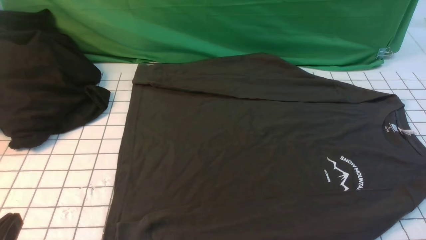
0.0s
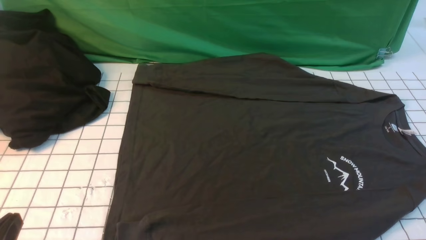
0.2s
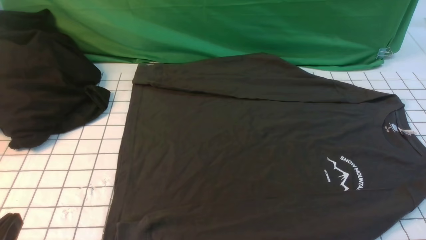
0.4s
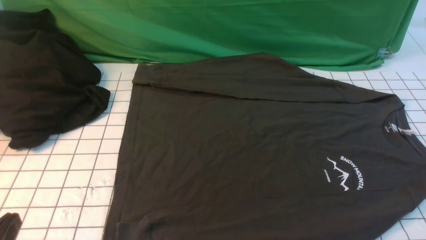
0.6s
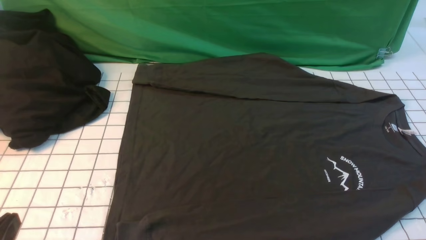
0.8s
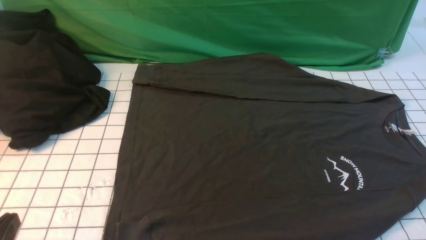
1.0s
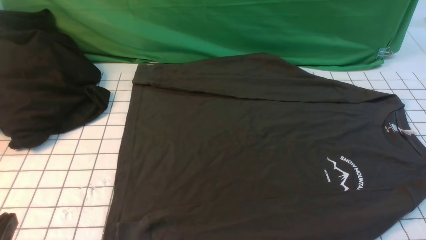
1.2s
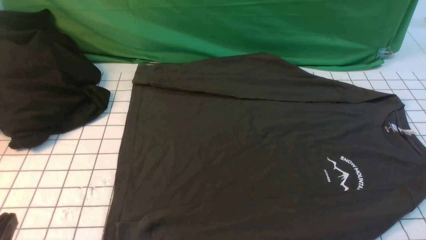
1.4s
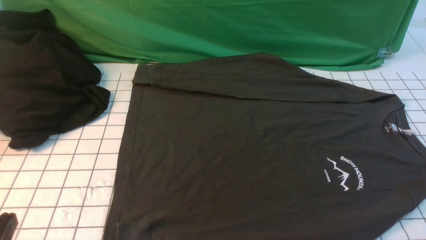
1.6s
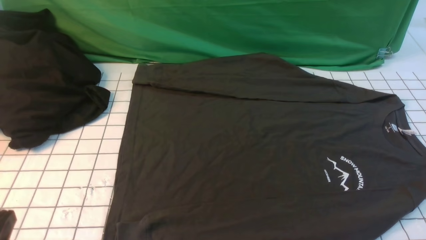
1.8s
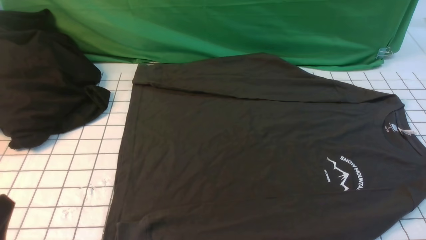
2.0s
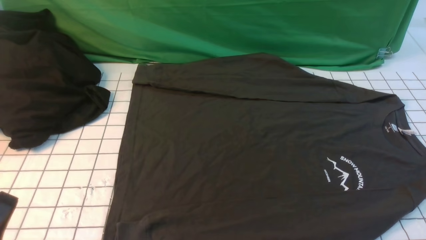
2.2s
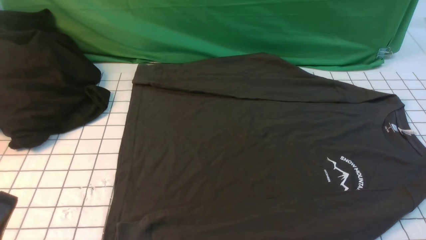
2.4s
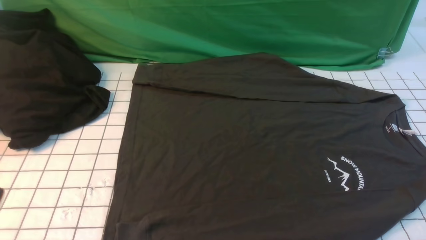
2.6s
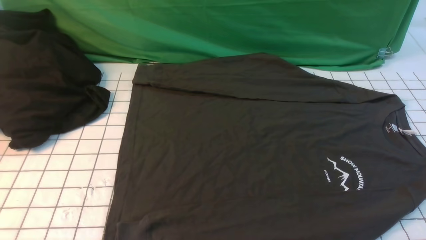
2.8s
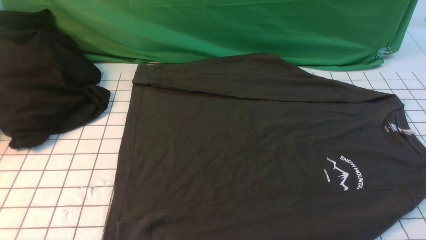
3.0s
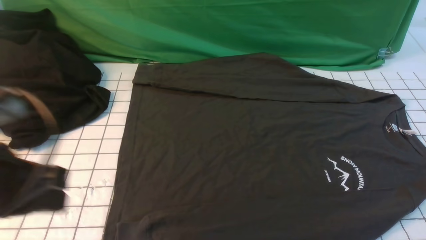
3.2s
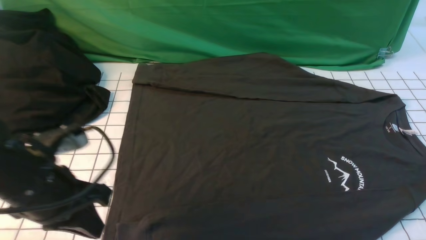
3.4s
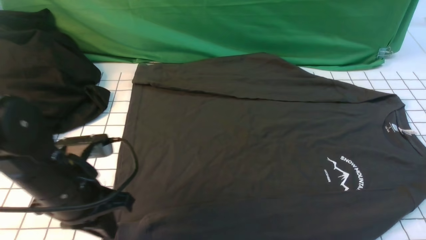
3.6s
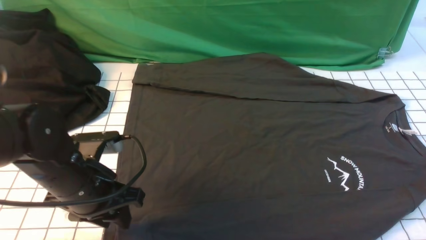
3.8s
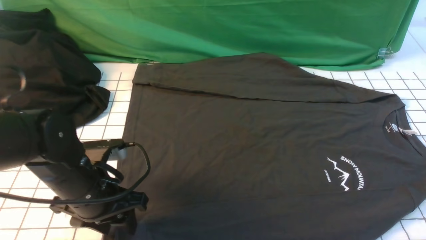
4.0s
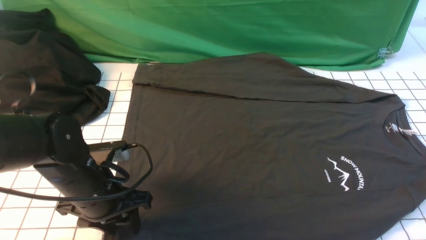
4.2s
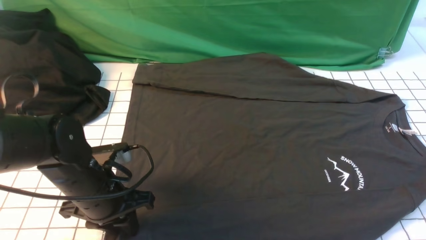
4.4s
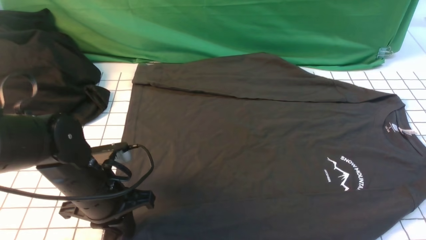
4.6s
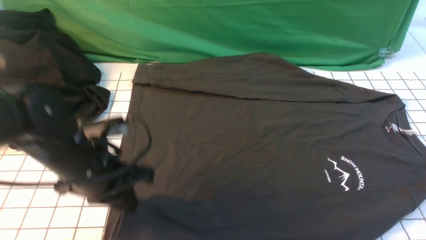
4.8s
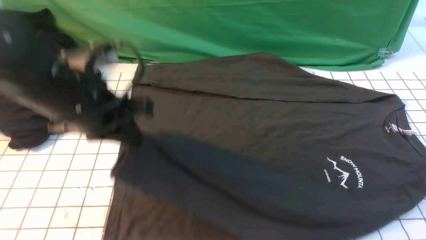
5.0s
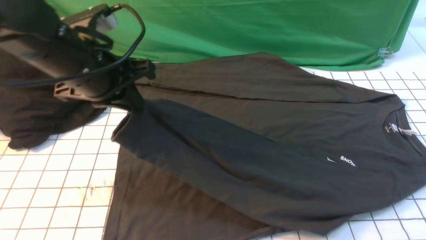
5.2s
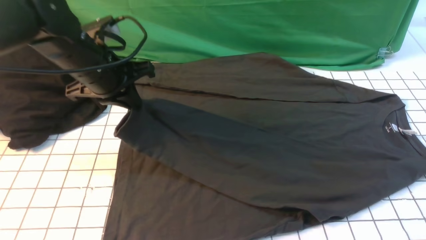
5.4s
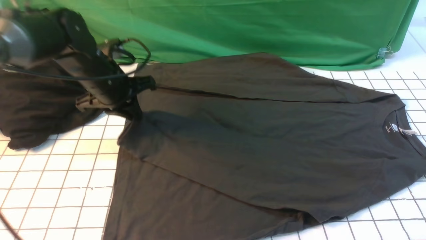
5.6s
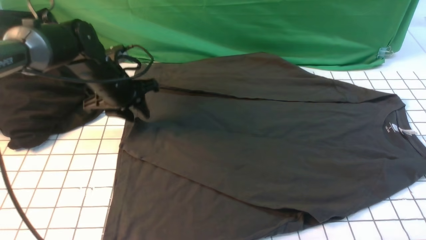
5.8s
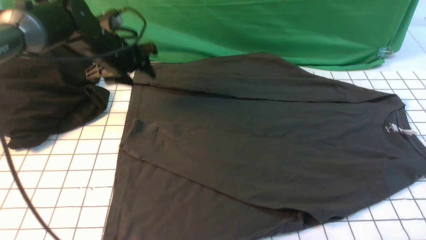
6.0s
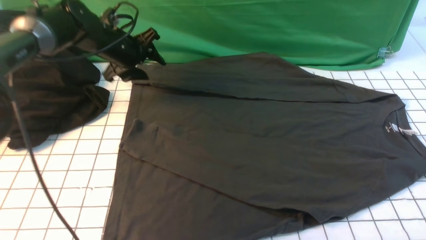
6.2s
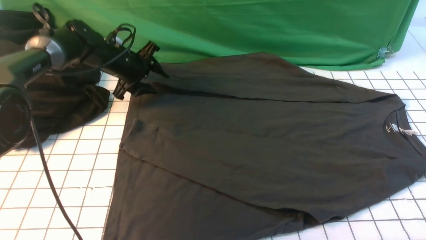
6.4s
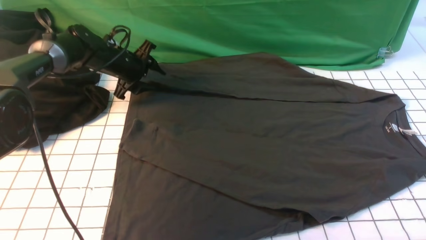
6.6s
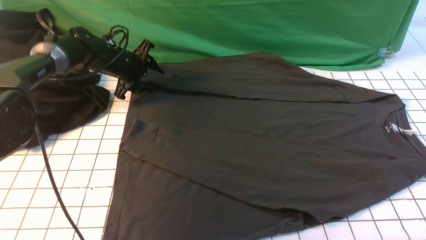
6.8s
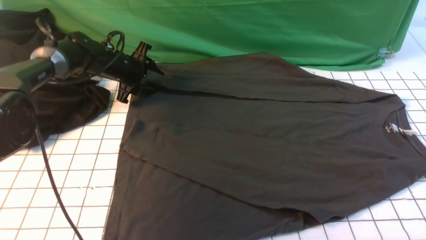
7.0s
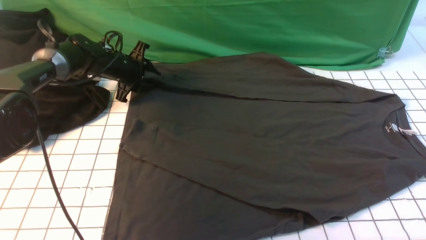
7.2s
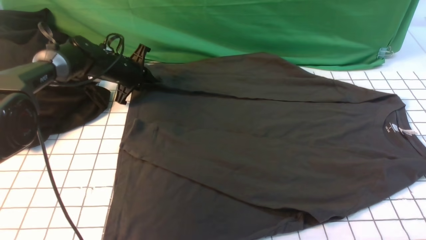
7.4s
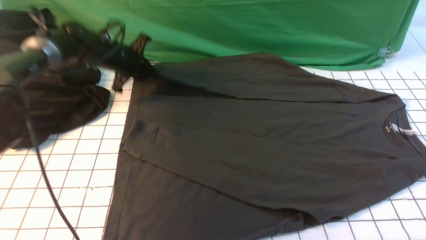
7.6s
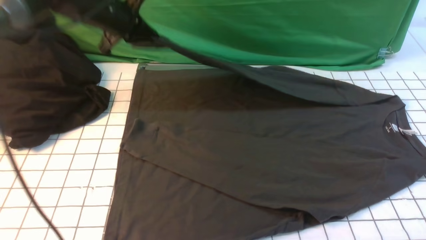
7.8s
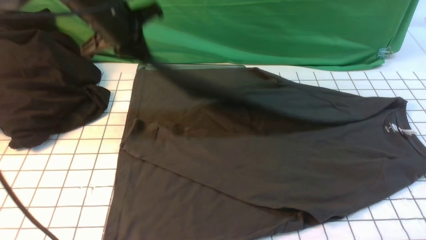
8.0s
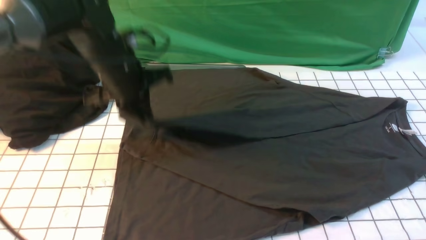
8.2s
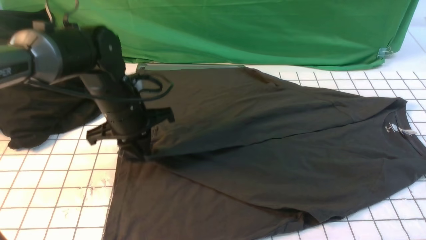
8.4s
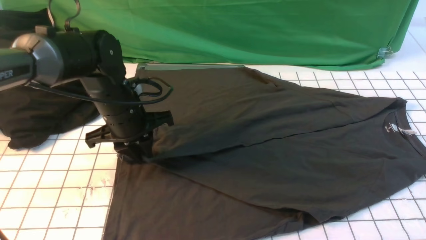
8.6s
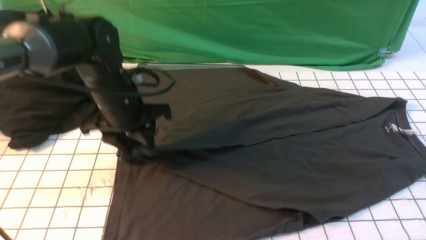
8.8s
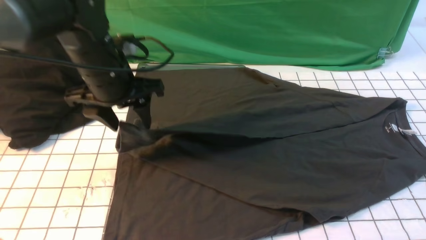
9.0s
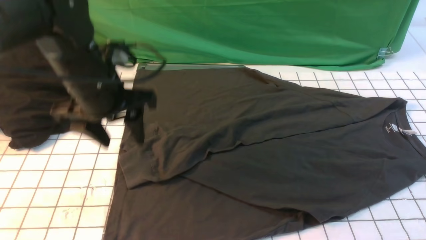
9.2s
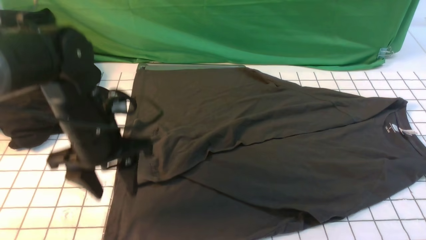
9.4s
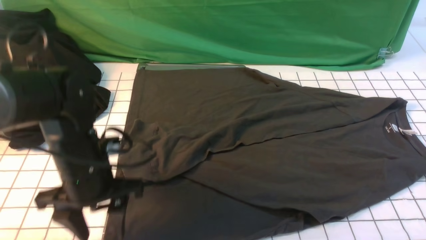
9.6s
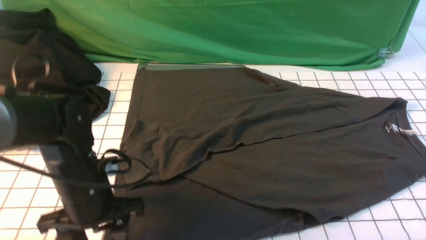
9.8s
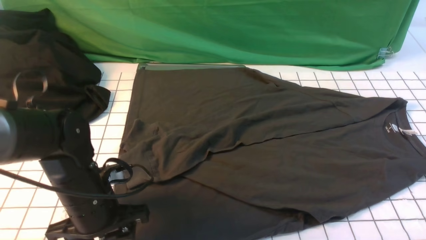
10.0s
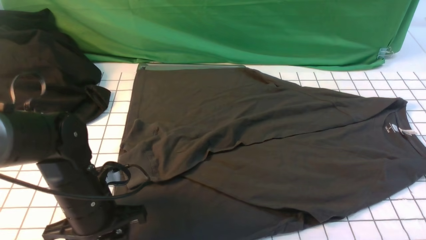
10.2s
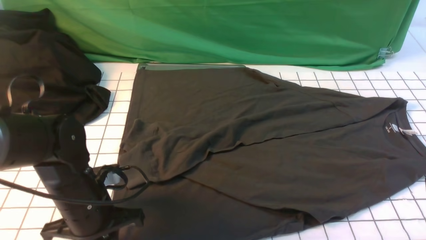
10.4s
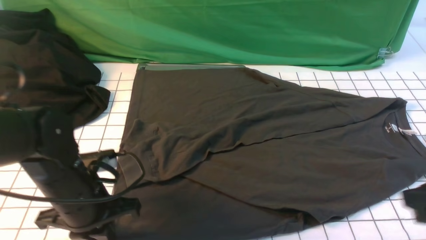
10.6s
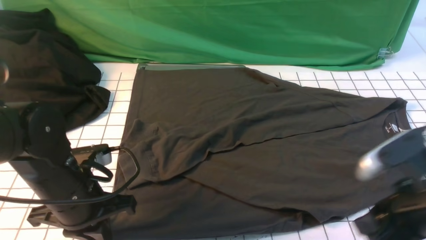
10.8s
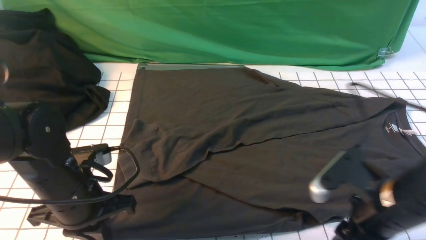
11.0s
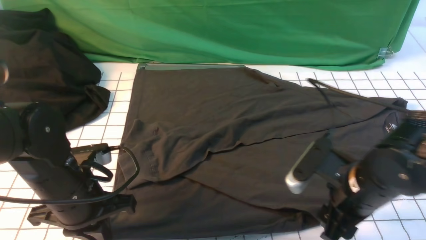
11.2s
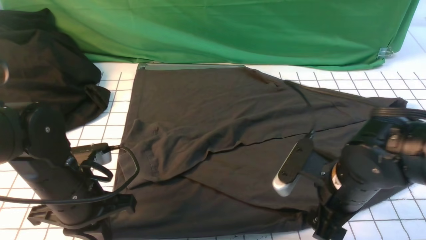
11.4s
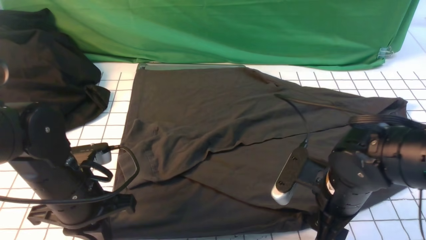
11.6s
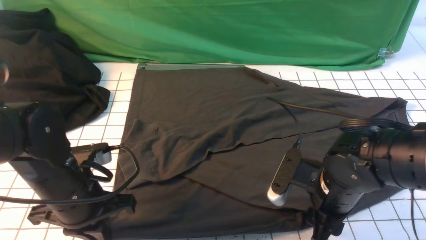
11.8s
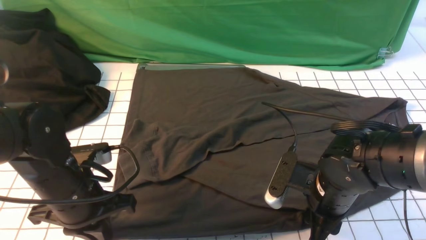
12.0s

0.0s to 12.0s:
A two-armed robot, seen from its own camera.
Step, 0.0s to 4.4s: use the left arm to clamp the cuff closest to it.
Step, 4.8s to 5.8s: use the left arm to drag and place the cuff at the centered position on the left edge of the fabric.
Step, 6.0s to 7.4s: use the left arm to clamp the cuff farthest from it.
Step, 7.6s to 9.0s: use the left arm to drag and drop the cuff onto the cuff closest to the left arm.
3.0s to 4.4s: The right gripper is displaced forward by some 5 cm, while the left gripper travels downward, forward and to the right by some 25 cm, and opens up.
4.4s to 6.0s: The left gripper goes some 25 cm forward, and opens up.
6.0s to 7.6s: The left gripper travels downward and back again, some 10 cm each way, and closes up.
7.6s to 9.0s: The left gripper goes approximately 15 cm backward, and opens up.
9.0s to 10.4s: The left gripper shifts about 15 cm backward and downward, and closes.
10.4s to 12.0s: The right gripper is displaced to the left, downward and forward by some 20 cm, and opens, then closes once more.

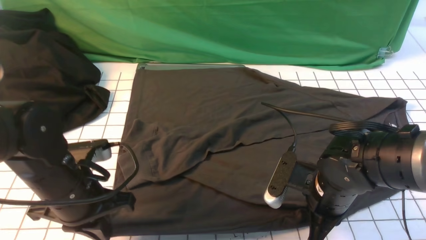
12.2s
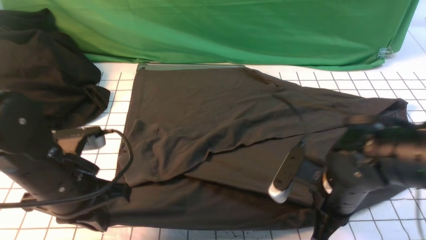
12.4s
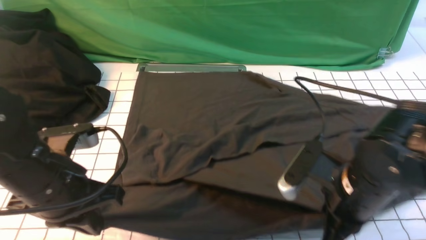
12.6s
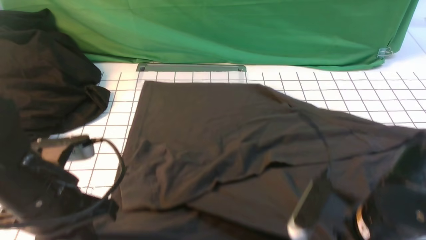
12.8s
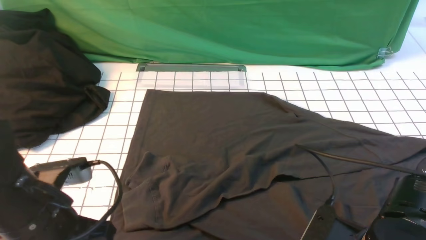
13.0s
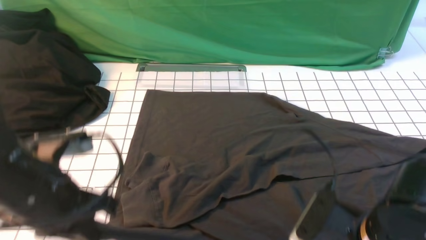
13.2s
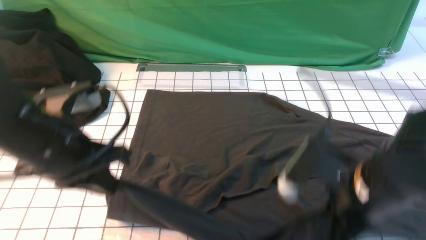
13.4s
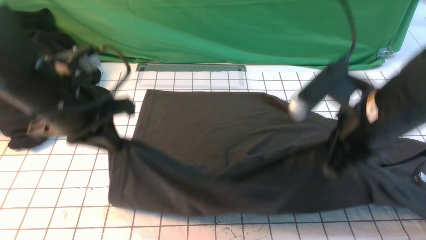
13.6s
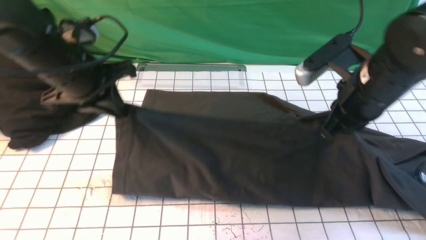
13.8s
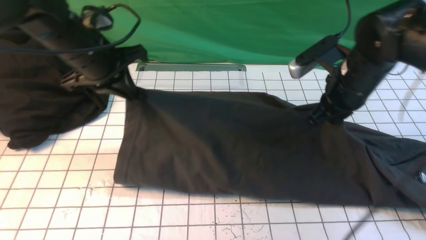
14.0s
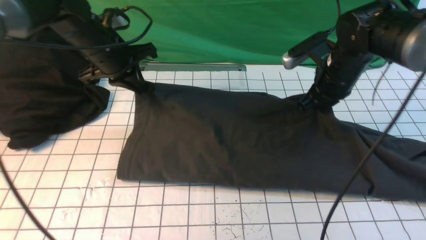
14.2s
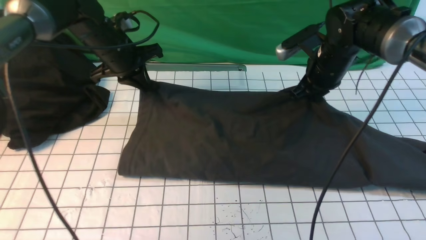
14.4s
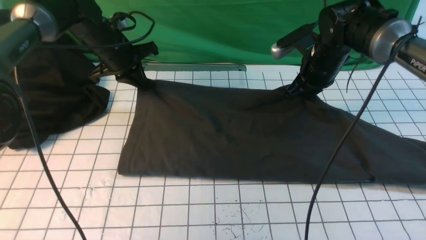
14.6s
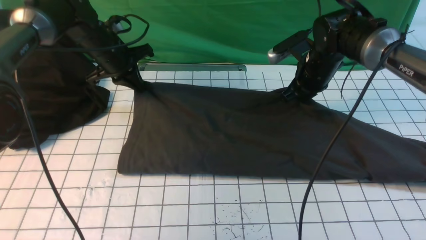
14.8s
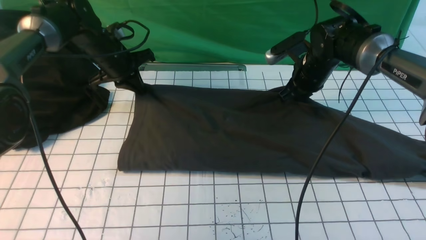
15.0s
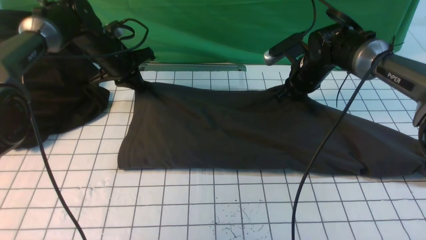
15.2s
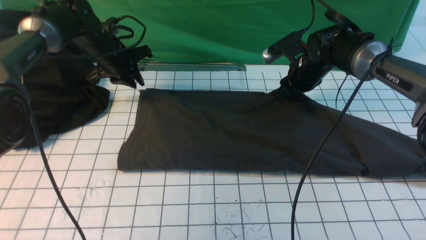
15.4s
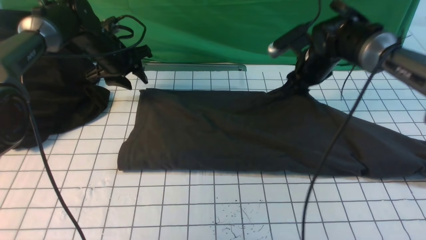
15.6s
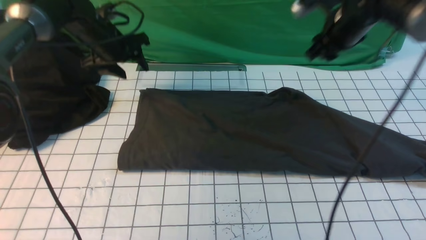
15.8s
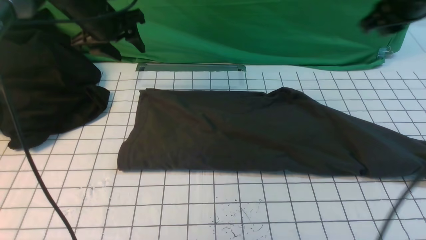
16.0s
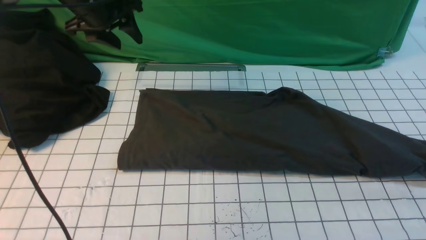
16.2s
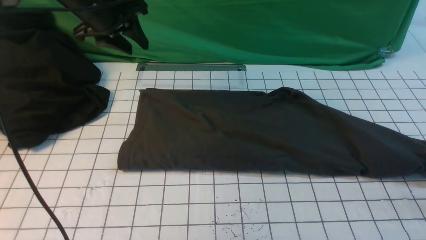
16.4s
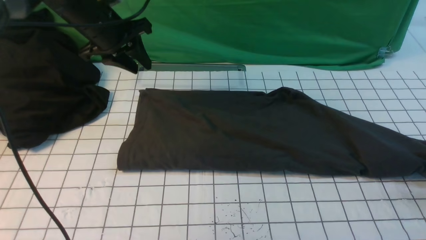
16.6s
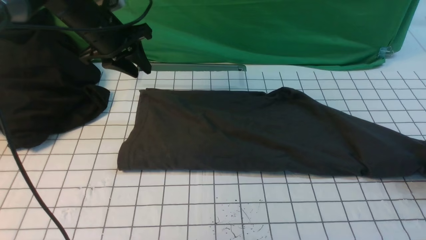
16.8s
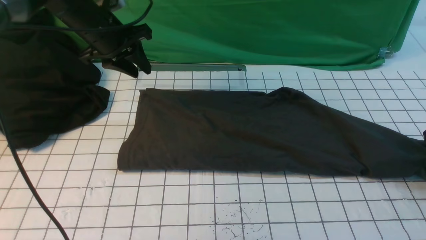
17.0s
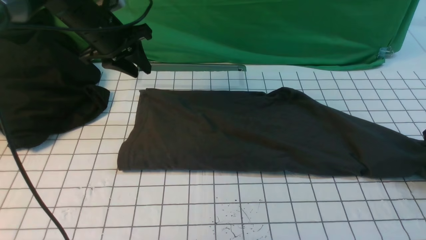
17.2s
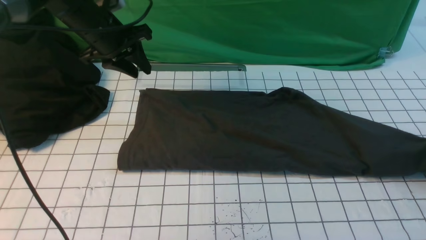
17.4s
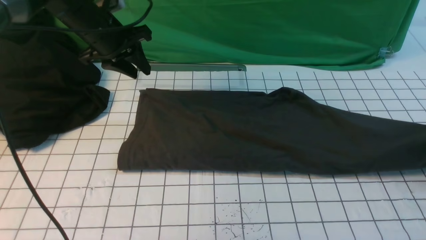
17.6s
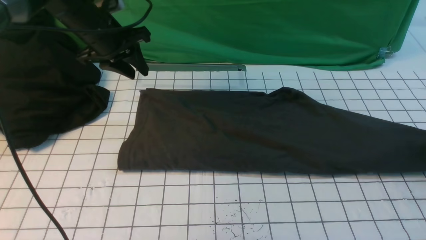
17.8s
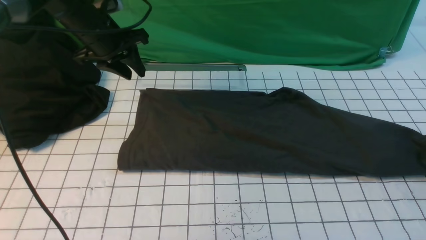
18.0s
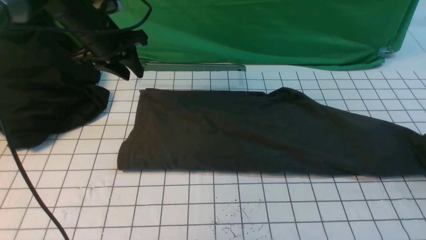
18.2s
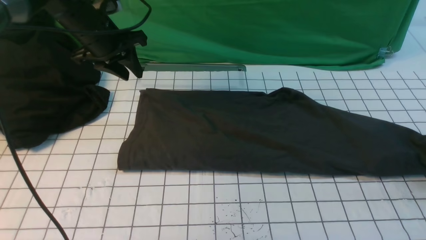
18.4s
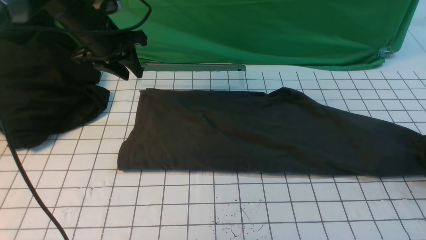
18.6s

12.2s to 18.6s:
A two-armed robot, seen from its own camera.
Step, 12.4s to 15.6s: use both arms to drag the lower edge of the fabric forward and fold it over the upper edge.
12.2s to 13.8s: The left gripper goes roughly 15 cm forward and upward; the right gripper travels upward and forward by roughly 15 cm.
13.8s to 15.4s: Both grippers move forward and downward, some 20 cm. The right gripper opens. Meanwhile the left gripper opens.
15.4s to 17.0s: The right gripper moves to the right and backward, roughly 30 cm. Meanwhile the left gripper heads upward, covering roughly 10 cm, and opens, then closes once more.
17.0s to 18.6s: The right gripper opens its fingers.
